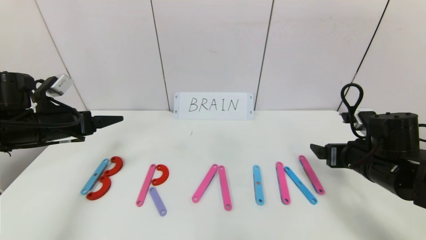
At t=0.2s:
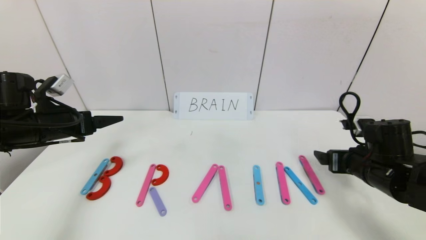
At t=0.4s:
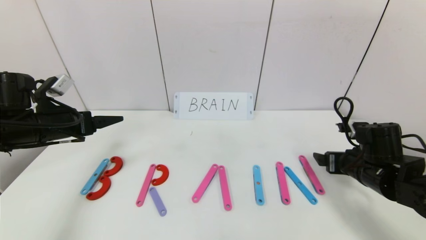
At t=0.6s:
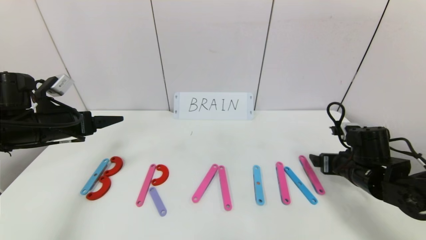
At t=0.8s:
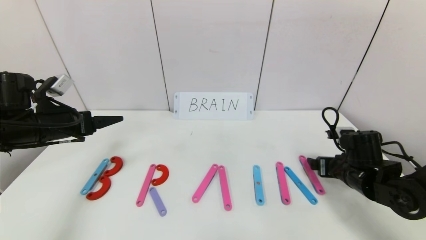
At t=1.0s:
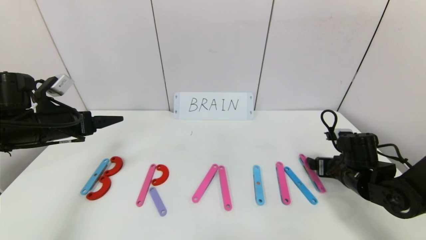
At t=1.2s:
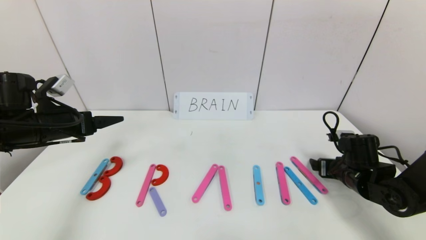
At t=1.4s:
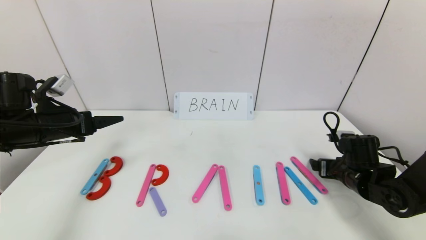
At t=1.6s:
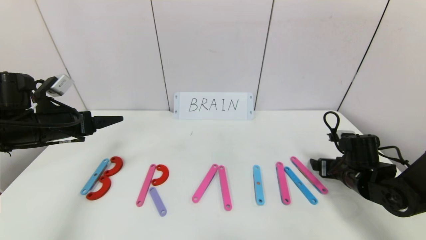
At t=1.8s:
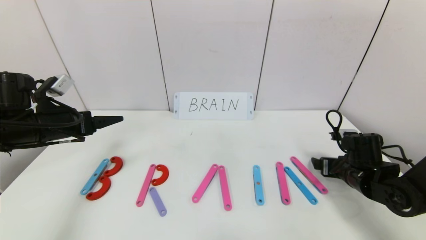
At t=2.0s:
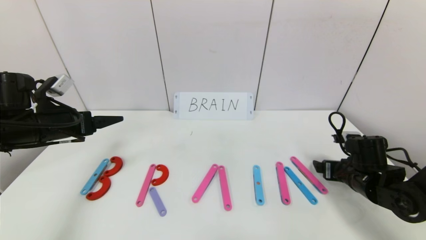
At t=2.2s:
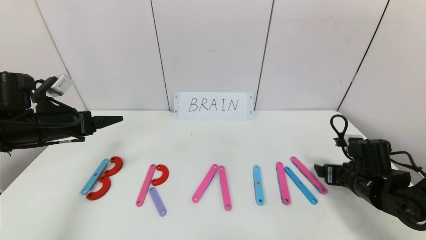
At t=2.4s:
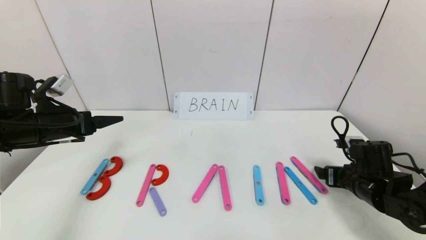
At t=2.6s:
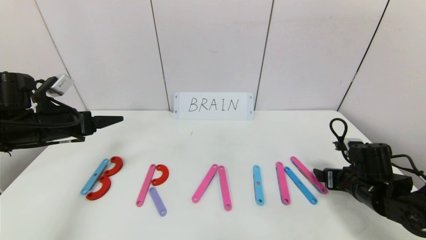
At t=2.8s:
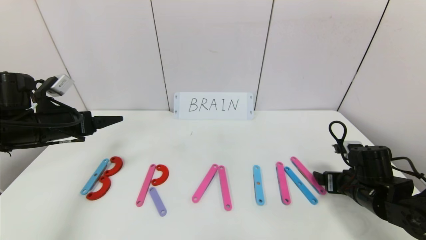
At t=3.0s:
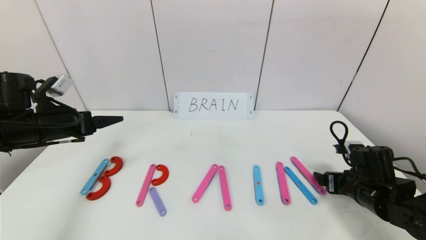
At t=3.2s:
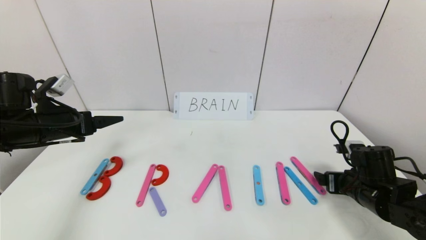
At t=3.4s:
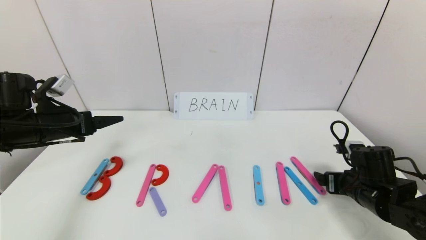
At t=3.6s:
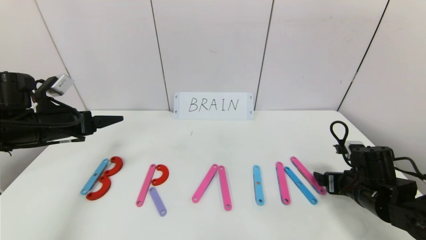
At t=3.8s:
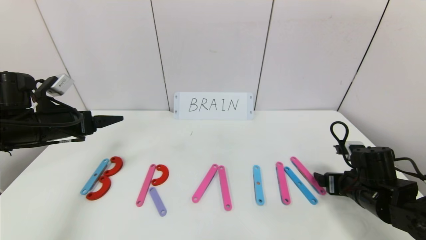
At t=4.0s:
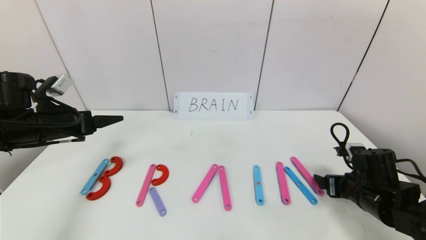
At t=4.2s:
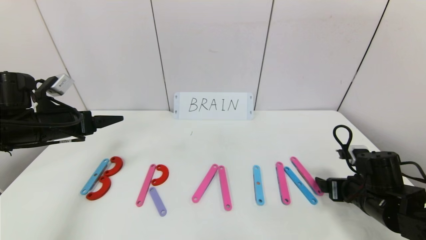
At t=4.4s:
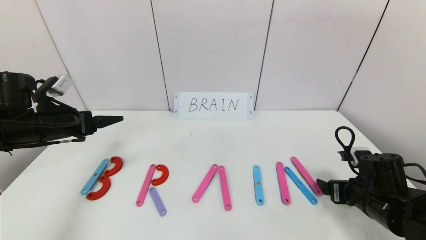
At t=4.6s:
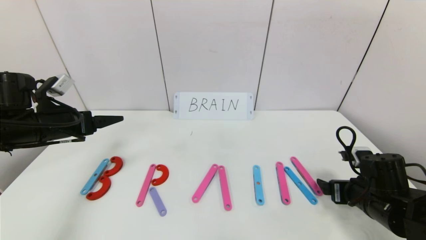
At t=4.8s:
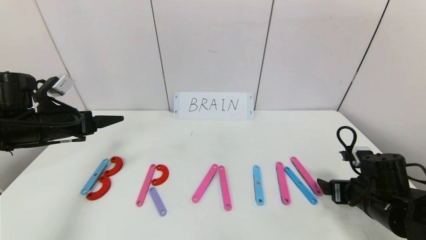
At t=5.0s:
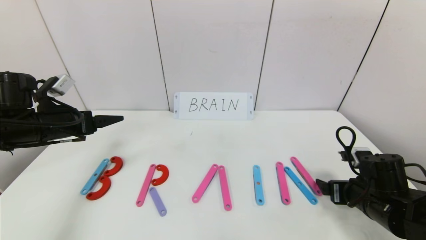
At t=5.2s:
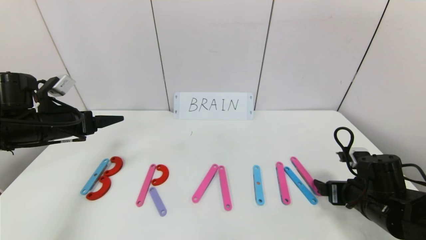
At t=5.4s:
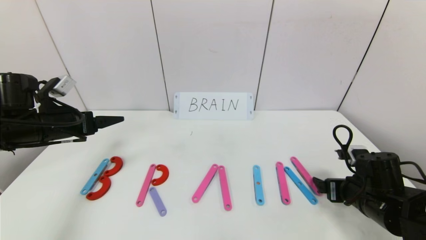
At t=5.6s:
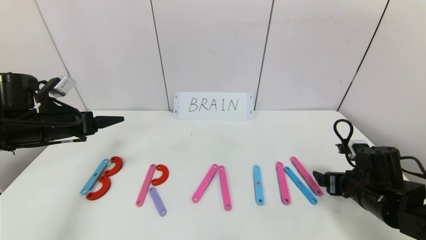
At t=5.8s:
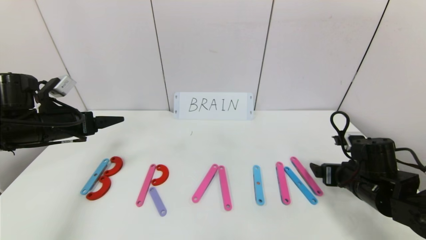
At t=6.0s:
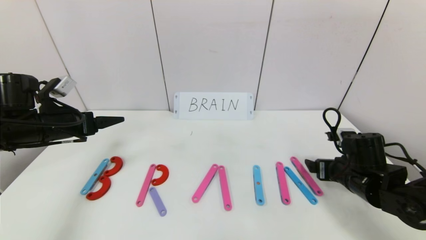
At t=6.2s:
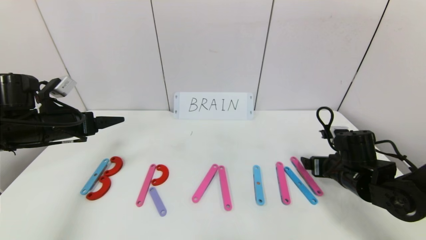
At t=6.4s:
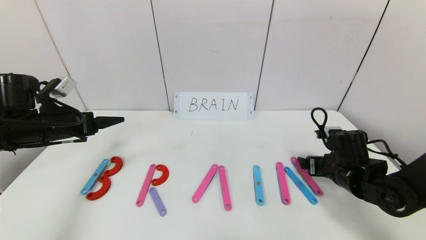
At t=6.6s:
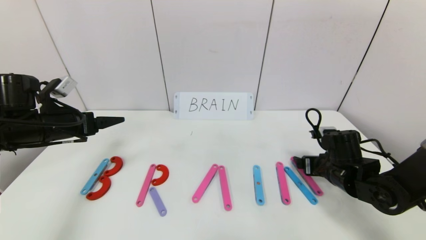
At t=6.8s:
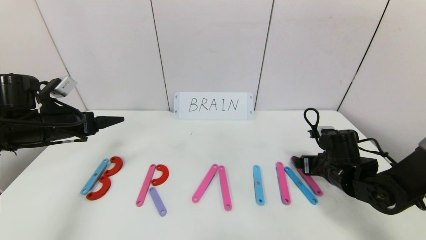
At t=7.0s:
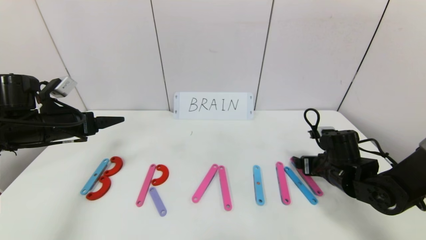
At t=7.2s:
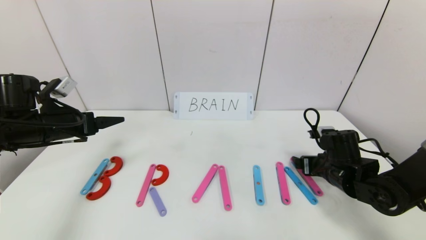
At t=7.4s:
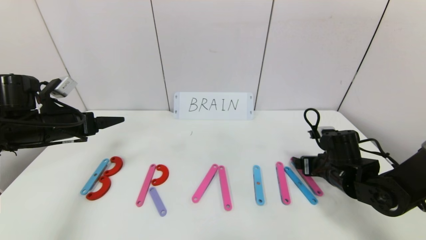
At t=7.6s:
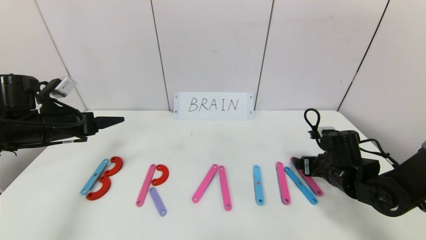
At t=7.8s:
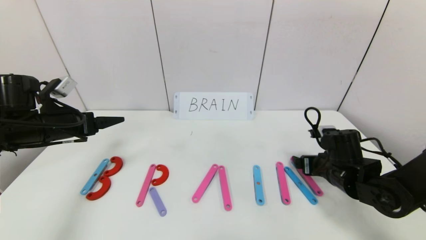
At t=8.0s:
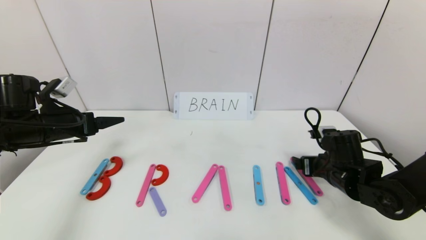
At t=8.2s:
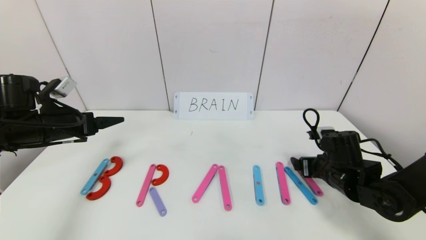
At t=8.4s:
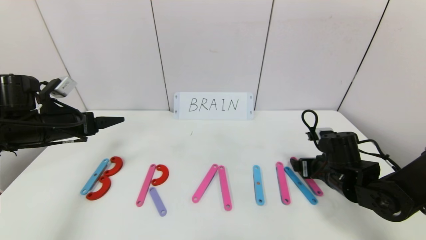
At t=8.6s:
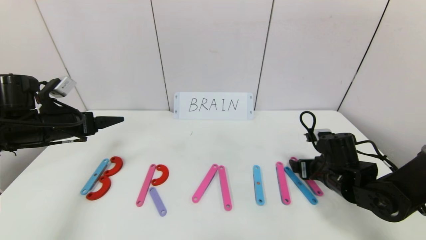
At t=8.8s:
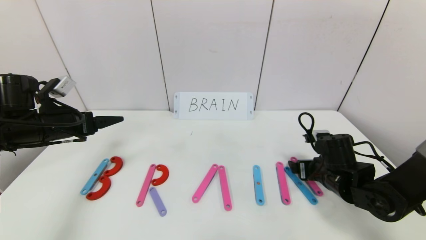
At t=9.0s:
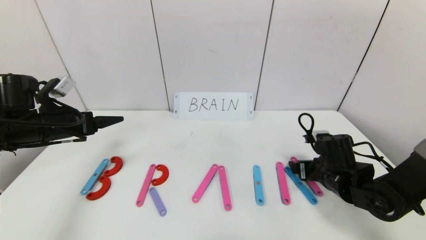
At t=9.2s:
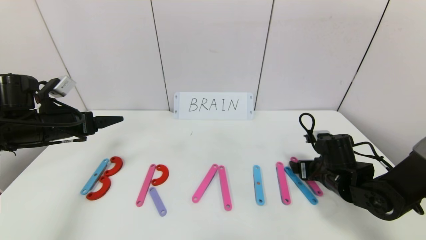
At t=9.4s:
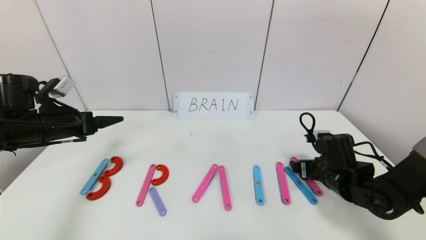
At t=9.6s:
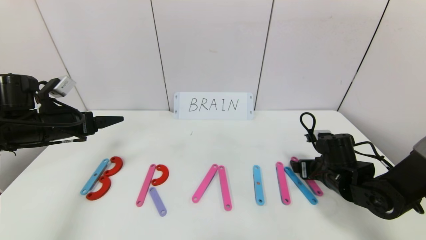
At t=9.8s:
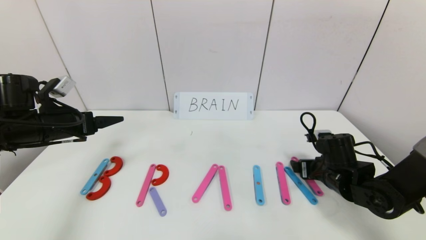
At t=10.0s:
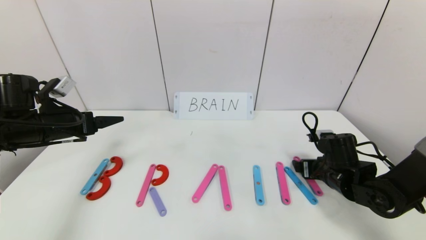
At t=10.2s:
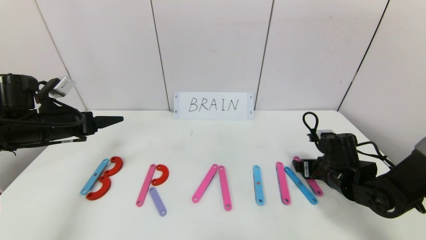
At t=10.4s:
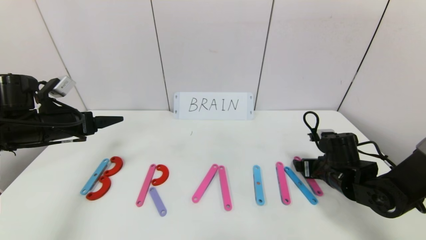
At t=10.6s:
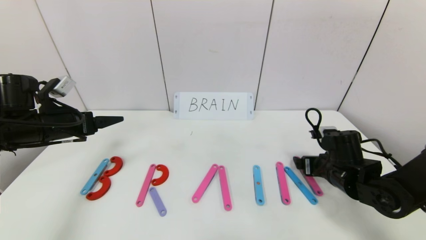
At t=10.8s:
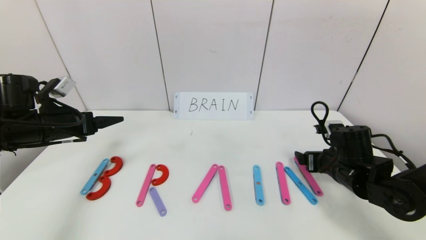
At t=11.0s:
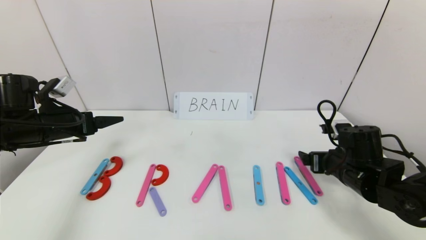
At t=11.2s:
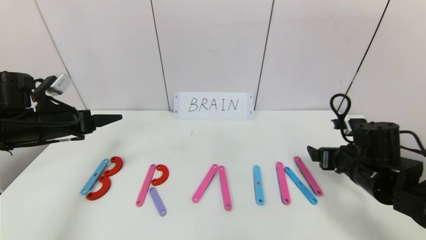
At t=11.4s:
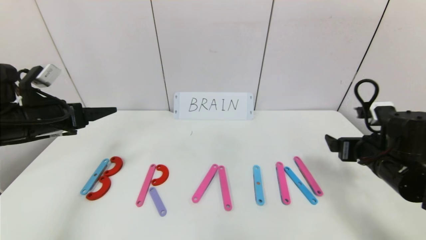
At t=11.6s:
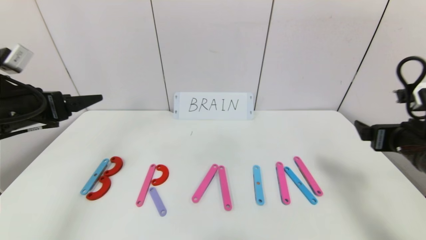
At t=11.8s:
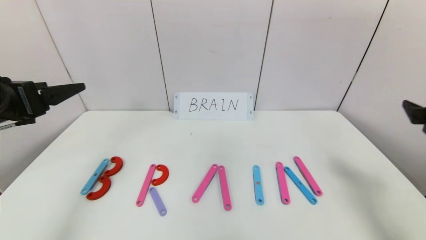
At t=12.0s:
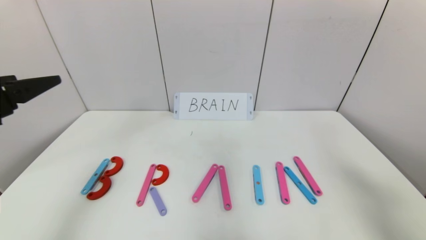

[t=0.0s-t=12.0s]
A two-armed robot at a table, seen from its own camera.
Task of the whole recording: rearrange the word baai as brain.
t=0.0s to t=1.6s: The right gripper shifts approximately 10 cm downward.
t=1.6s to t=3.0s: There are only small adjustments of the grippers.
t=3.0s to t=4.4s: There are only small adjustments of the grippers.
t=4.4s to t=6.0s: The right gripper changes place by approximately 5 cm.
t=6.0s to t=7.6s: There are only small adjustments of the grippers.
t=7.6s to t=10.4s: The two grippers keep their place.
t=10.4s to t=12.0s: The left gripper heads backward and upward, covering approximately 20 cm, while the right gripper moves upward and backward, roughly 30 cm.

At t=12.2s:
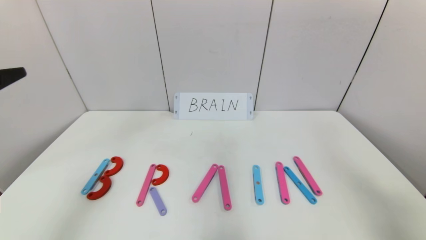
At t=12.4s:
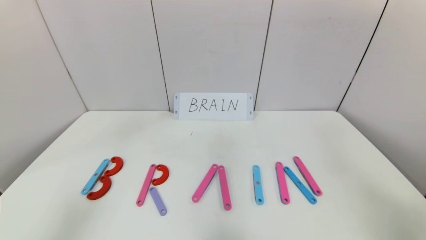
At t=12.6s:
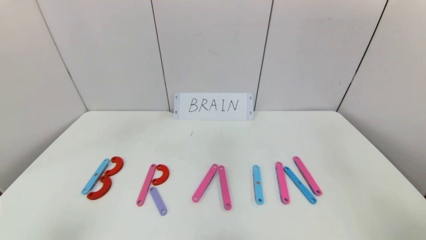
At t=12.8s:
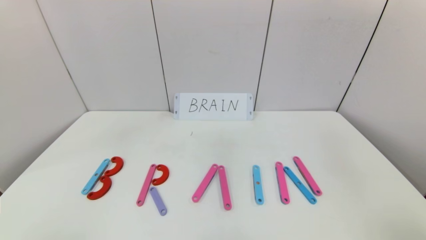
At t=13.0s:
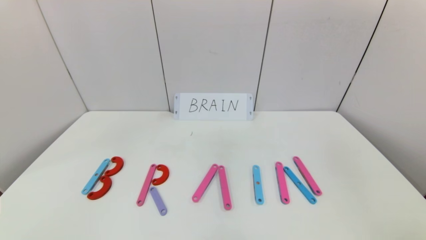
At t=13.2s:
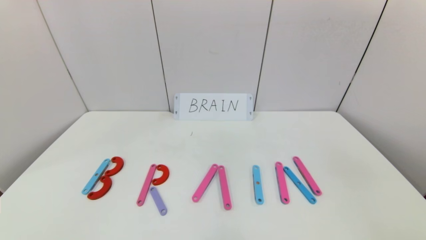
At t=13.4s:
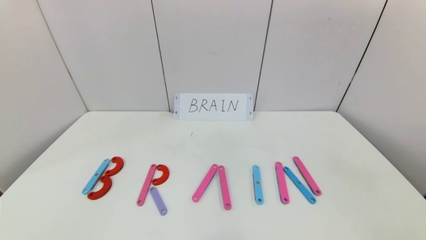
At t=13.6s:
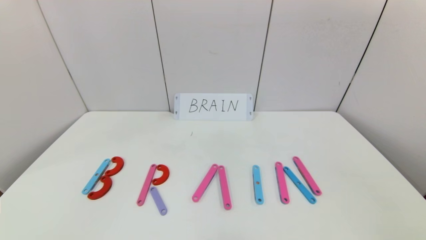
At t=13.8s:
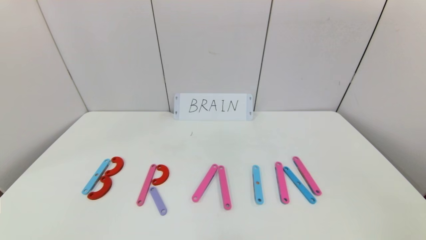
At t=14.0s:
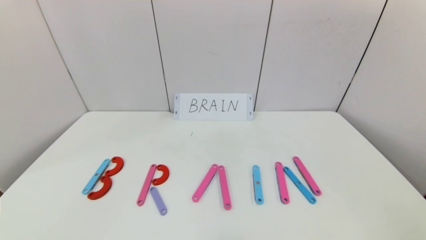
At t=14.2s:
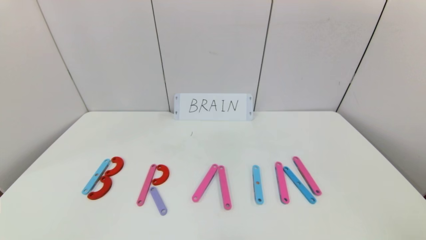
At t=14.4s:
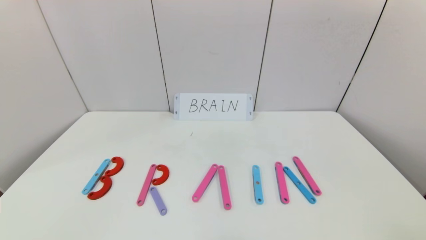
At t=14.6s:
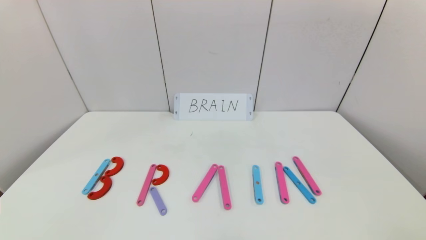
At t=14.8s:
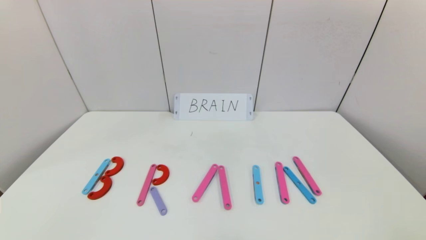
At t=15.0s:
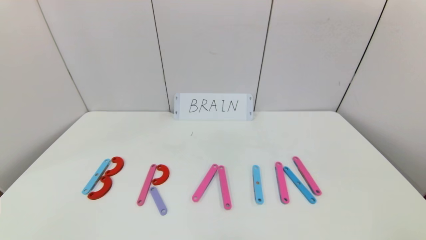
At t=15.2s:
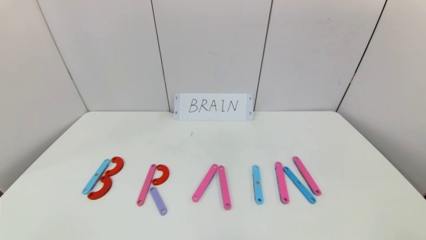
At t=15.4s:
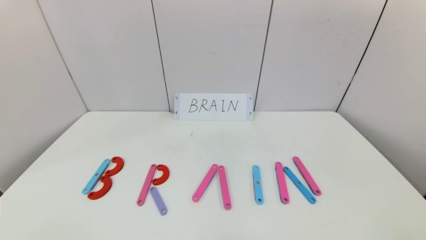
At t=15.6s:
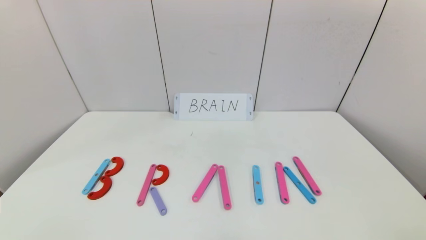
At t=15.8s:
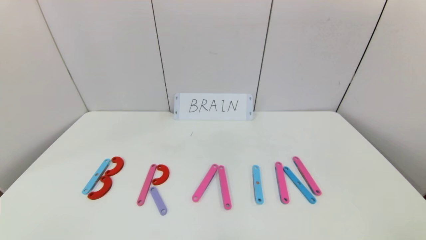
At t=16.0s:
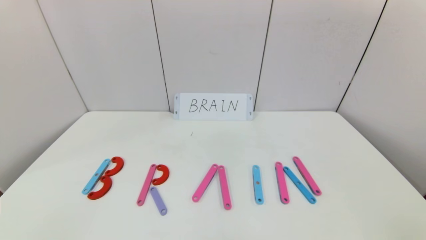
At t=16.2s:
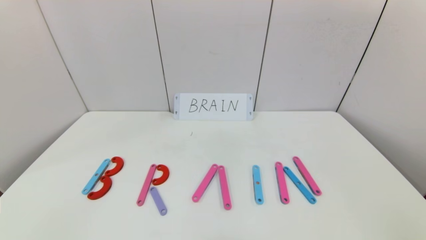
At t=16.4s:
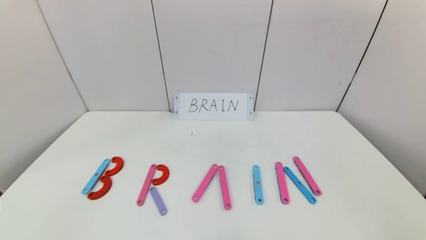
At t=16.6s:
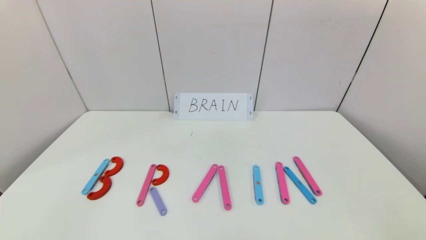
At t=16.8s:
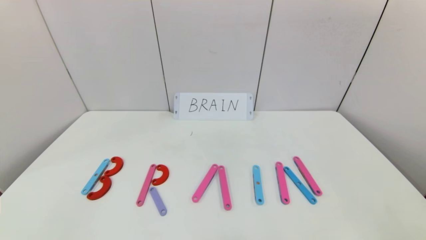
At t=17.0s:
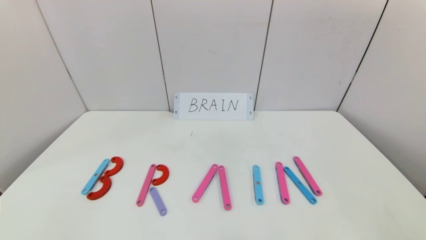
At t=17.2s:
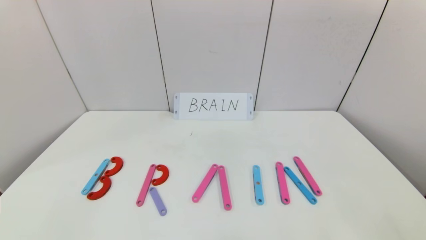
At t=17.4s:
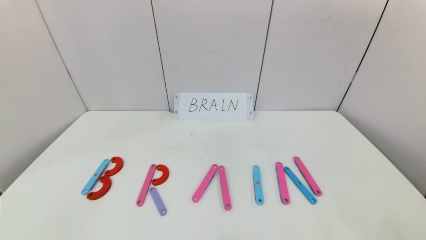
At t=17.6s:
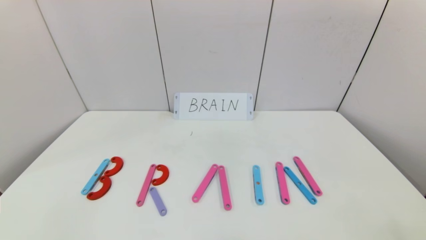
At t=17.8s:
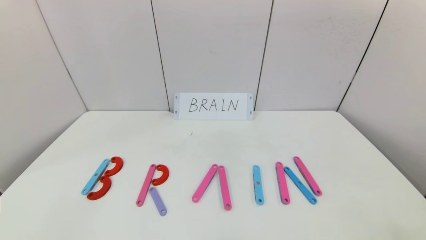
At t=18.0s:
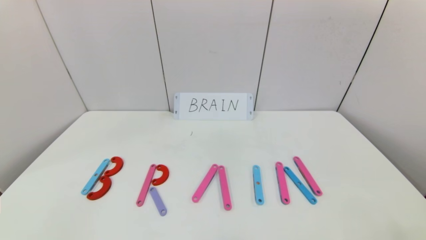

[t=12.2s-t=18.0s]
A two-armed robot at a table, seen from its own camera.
Task of the whole recording: rearrange the word baai as brain.
t=12.2s to t=13.6s: The grippers both shift backward by approximately 25 cm.
